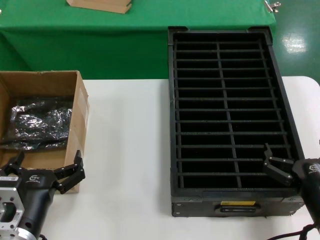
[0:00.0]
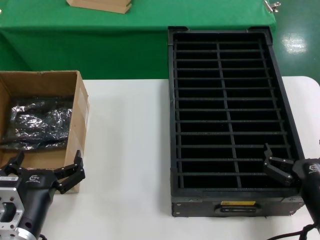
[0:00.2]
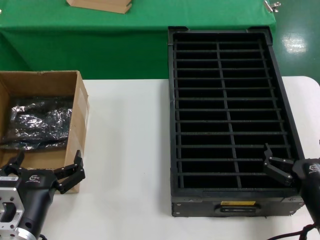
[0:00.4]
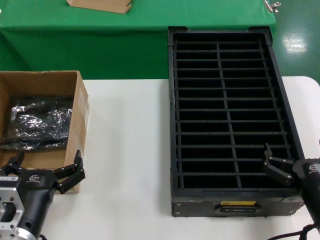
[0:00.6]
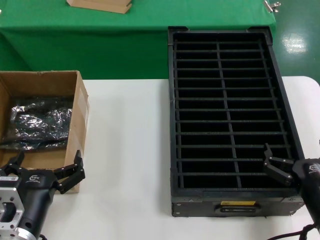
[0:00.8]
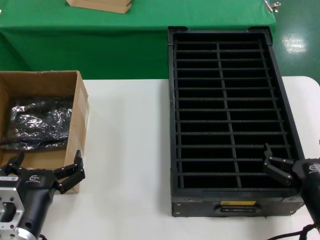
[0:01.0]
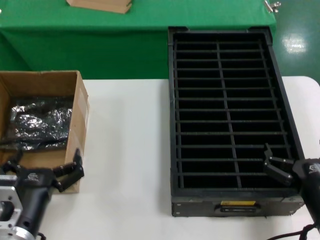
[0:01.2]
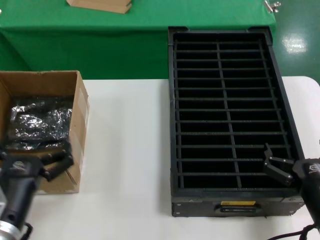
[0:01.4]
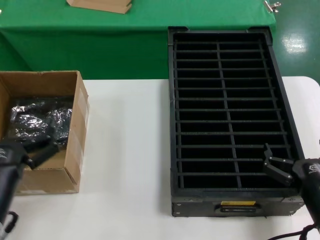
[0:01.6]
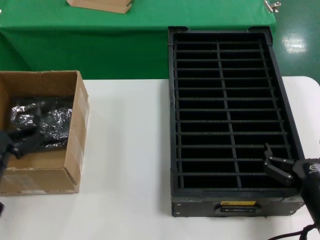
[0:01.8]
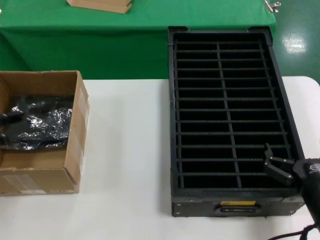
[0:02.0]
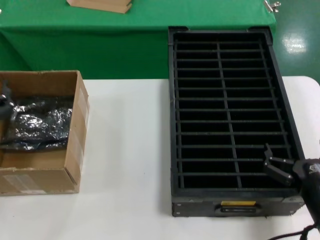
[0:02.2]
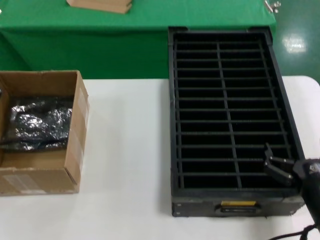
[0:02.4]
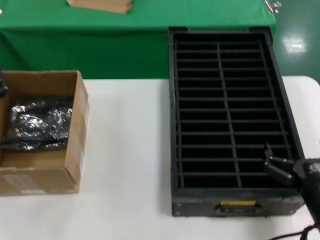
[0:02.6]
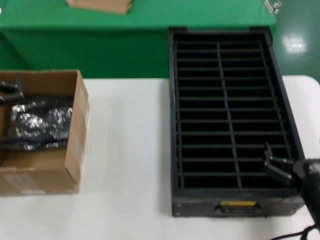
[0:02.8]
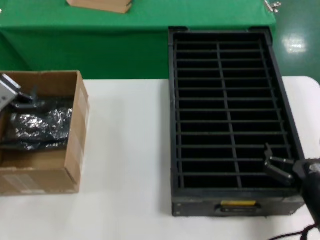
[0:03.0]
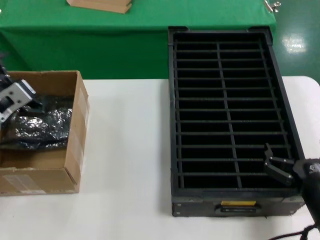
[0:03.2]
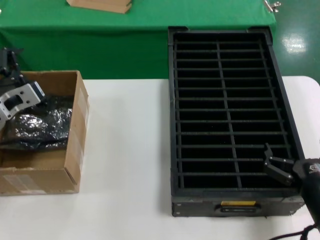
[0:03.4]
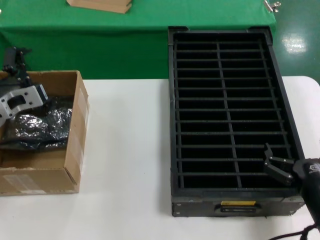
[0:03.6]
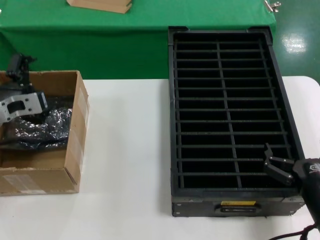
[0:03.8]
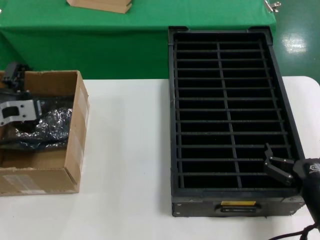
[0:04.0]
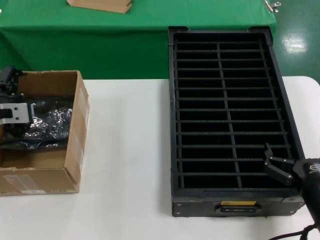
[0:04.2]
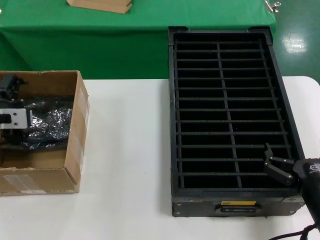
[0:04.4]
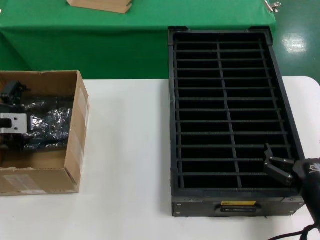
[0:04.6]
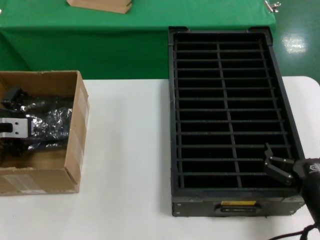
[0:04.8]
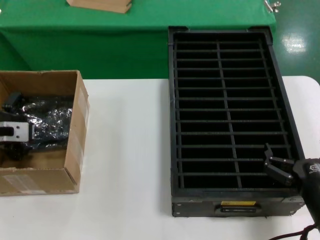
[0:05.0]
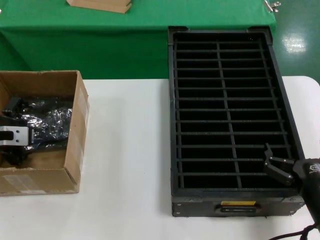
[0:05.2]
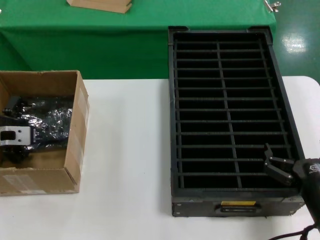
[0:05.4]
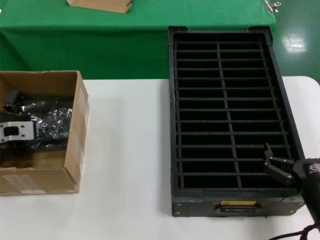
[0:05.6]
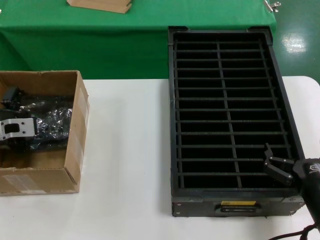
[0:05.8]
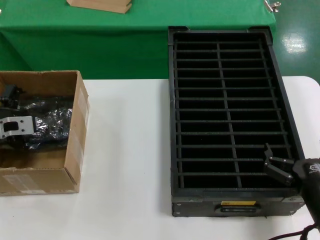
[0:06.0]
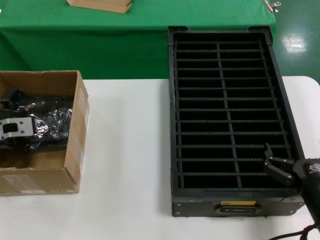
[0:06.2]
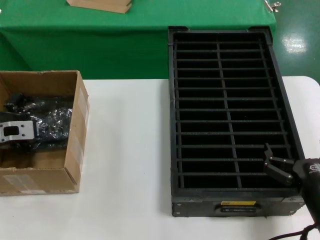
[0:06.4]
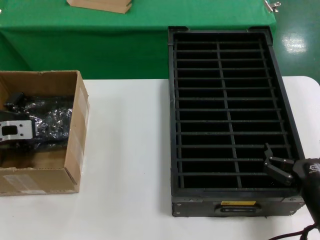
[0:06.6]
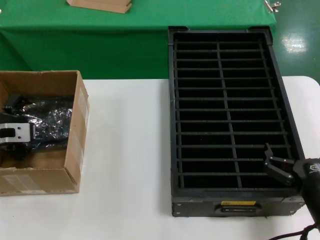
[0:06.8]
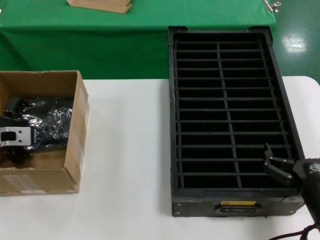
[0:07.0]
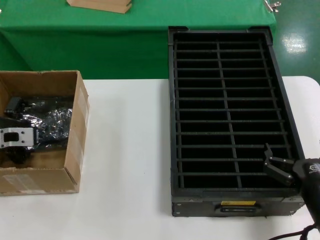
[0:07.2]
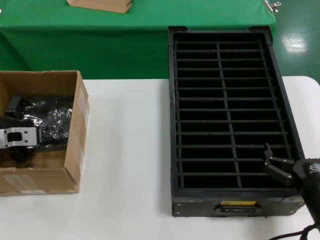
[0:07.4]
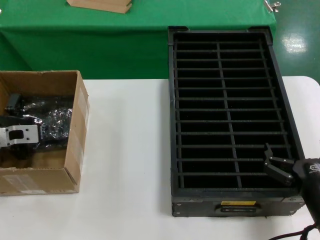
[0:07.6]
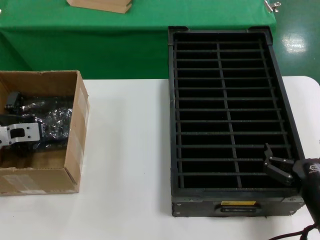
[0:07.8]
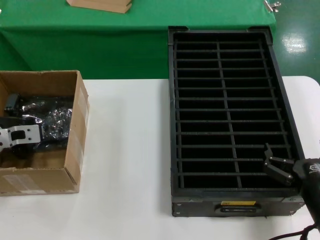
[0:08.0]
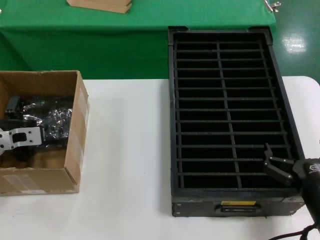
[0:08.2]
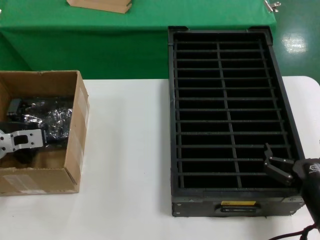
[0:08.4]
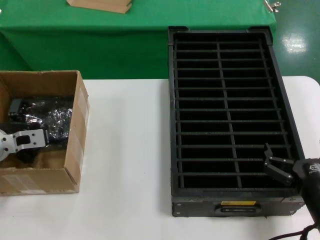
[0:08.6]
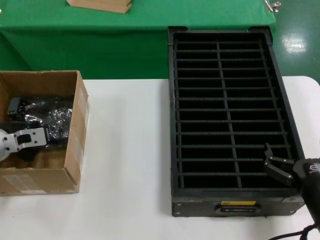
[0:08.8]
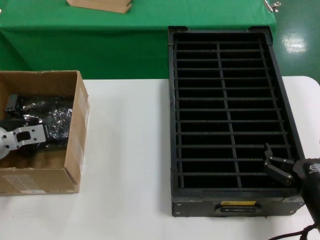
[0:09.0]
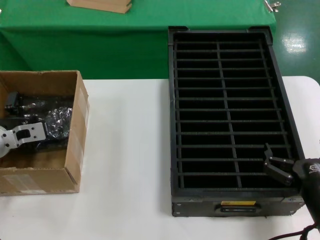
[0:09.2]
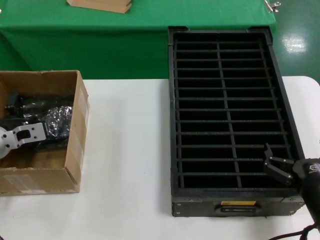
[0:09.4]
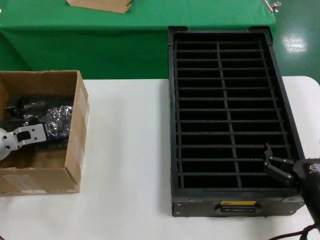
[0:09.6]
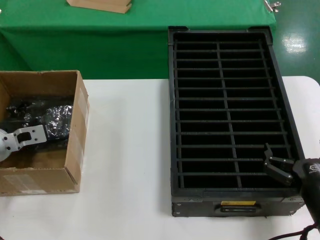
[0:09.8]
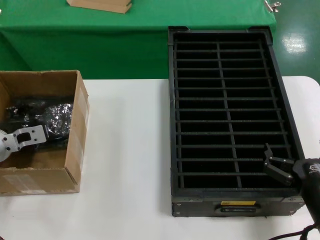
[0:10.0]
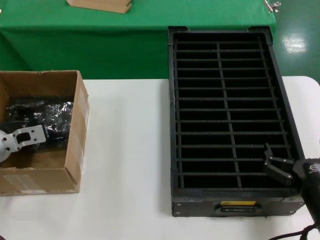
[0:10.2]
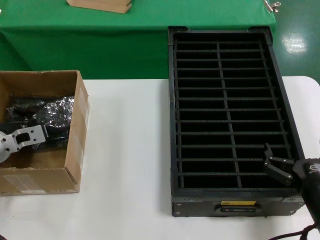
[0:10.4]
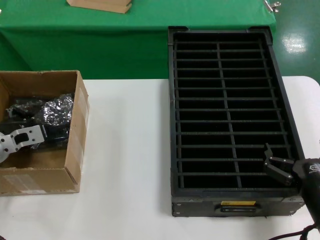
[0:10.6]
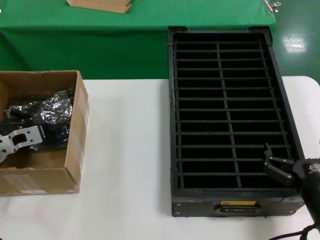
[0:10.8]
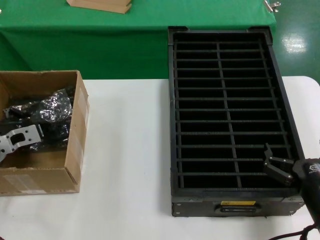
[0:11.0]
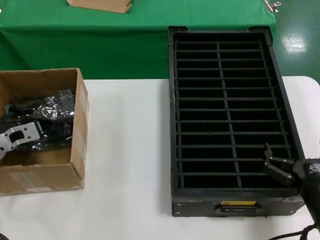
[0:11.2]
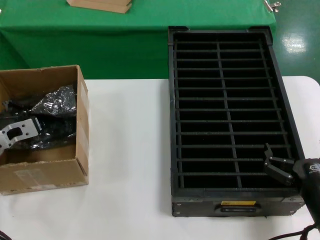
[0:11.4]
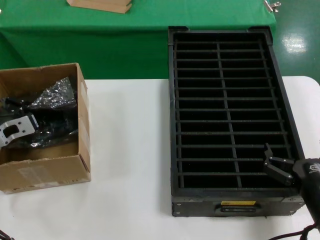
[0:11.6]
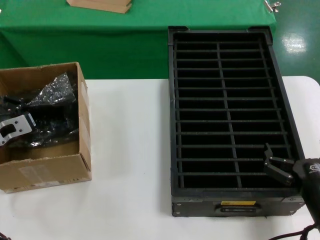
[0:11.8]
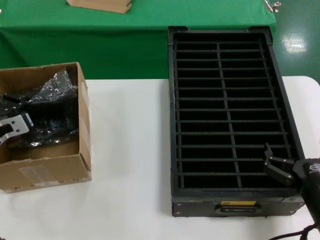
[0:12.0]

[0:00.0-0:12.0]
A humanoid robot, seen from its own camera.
Task of the whole recording: take out graphics card from box remove packaging put into black container.
Step, 0:00.0 to 0:10.8: Grasp the bag.
0:00.0 to 0:01.6: The left hand heads upward, covering roughly 5 cm.
0:01.6 to 0:03.0: The left hand goes roughly 20 cm forward, upward and to the left.
0:03.0 to 0:04.4: The left hand heads forward, covering about 5 cm.
0:04.4 to 0:07.6: The hands stay close to where they were, moving slightly.
0:07.6 to 0:09.0: The hands make only small movements.
0:09.0 to 0:10.4: The two hands keep their place.
0:10.4 to 0:12.0: The hands move only a little.

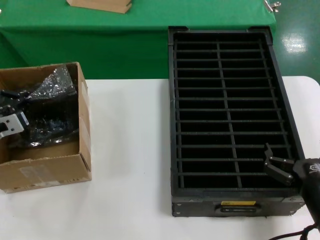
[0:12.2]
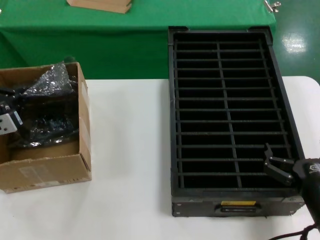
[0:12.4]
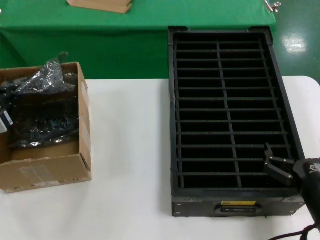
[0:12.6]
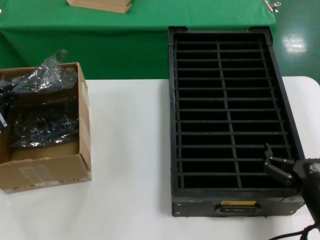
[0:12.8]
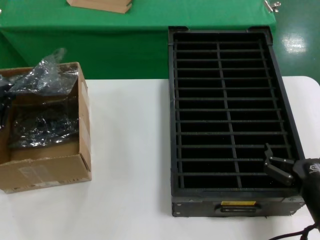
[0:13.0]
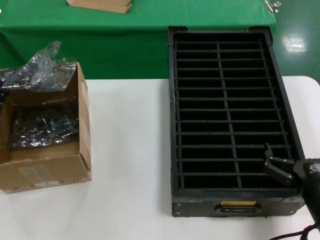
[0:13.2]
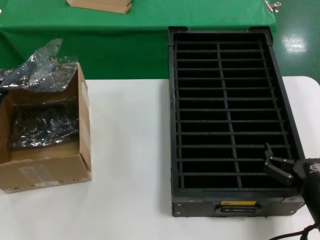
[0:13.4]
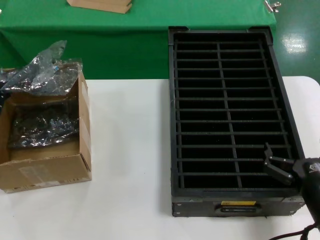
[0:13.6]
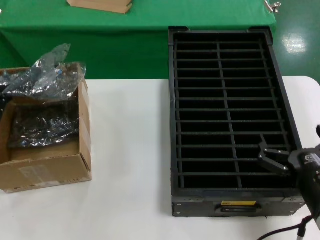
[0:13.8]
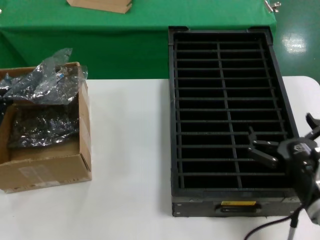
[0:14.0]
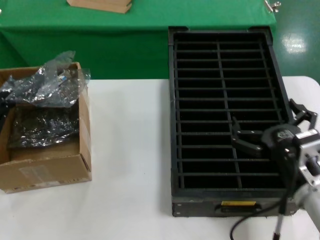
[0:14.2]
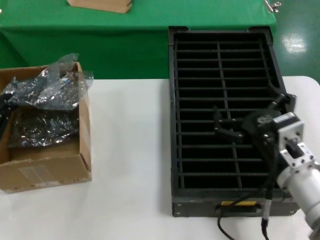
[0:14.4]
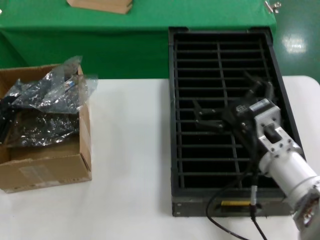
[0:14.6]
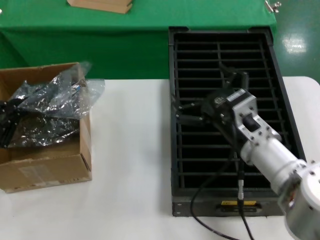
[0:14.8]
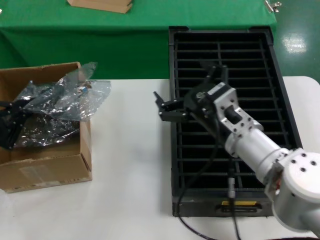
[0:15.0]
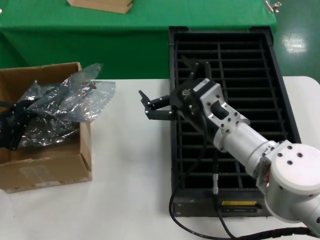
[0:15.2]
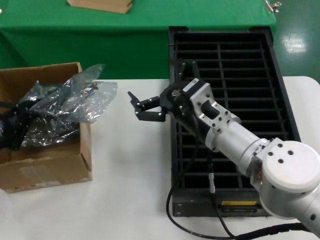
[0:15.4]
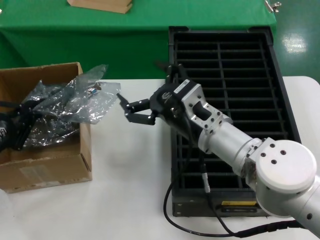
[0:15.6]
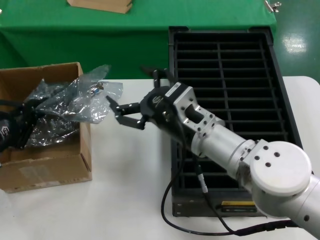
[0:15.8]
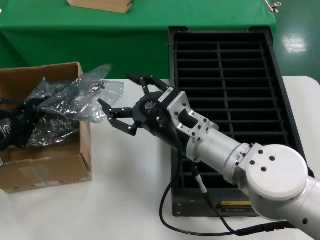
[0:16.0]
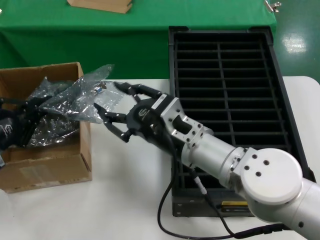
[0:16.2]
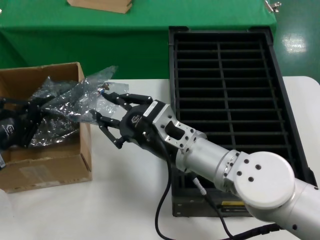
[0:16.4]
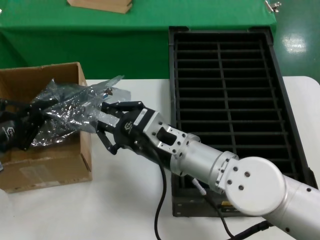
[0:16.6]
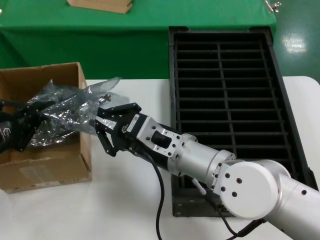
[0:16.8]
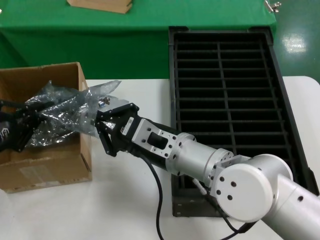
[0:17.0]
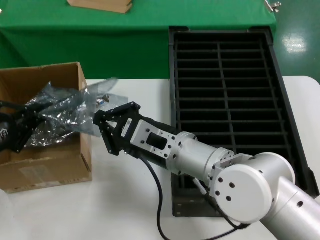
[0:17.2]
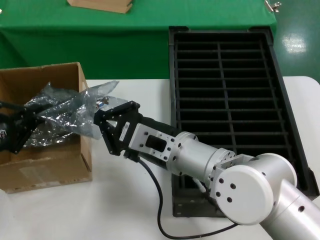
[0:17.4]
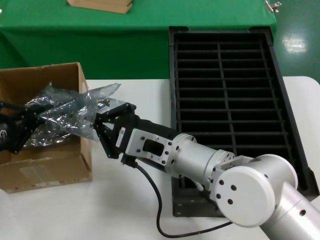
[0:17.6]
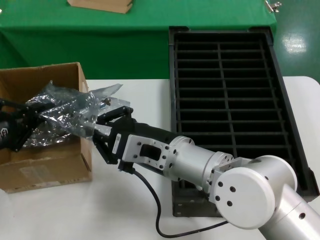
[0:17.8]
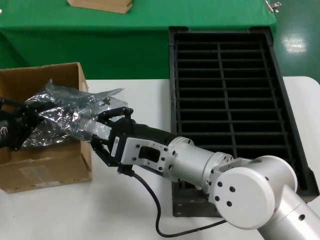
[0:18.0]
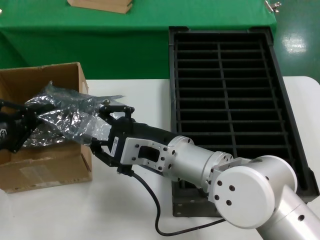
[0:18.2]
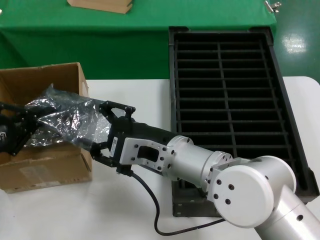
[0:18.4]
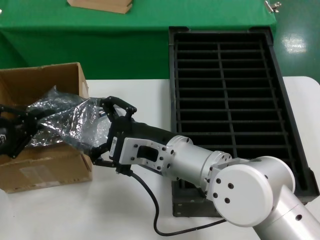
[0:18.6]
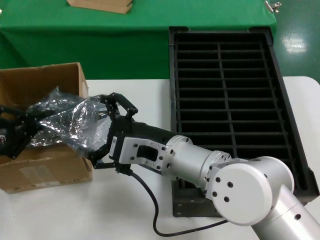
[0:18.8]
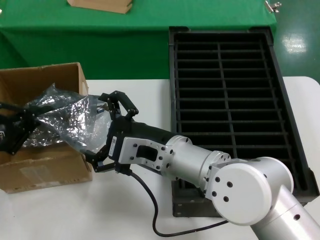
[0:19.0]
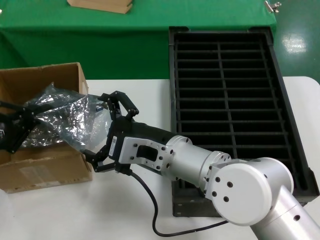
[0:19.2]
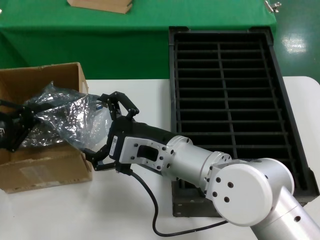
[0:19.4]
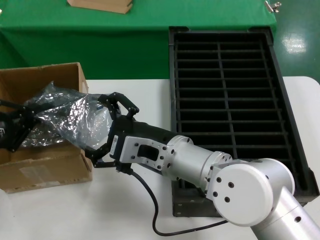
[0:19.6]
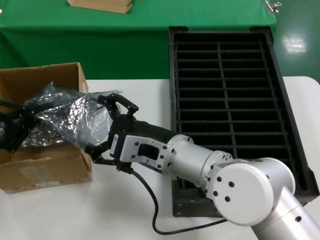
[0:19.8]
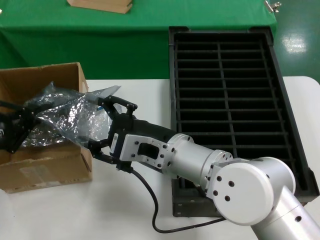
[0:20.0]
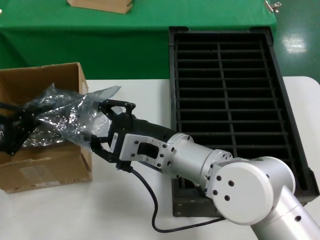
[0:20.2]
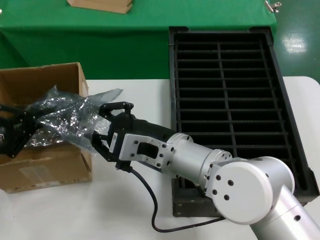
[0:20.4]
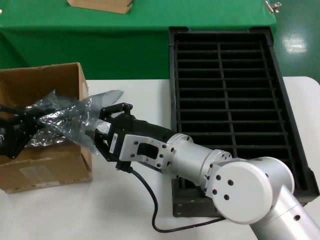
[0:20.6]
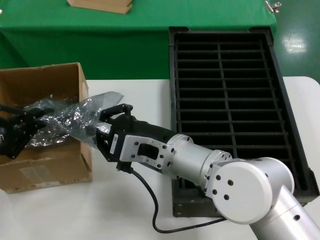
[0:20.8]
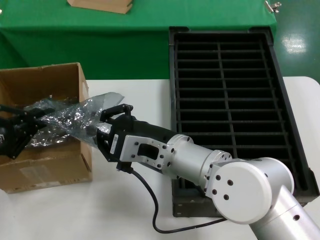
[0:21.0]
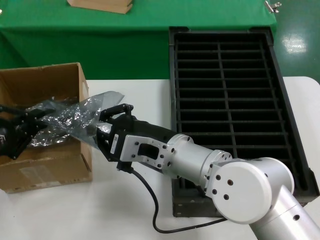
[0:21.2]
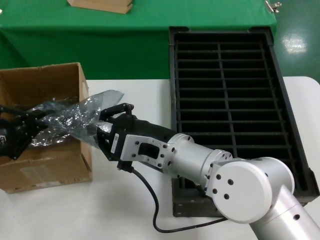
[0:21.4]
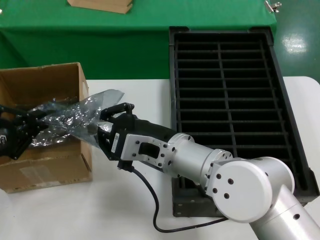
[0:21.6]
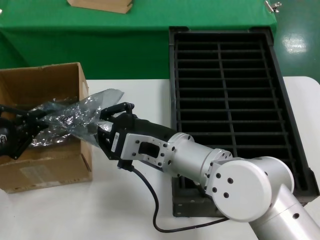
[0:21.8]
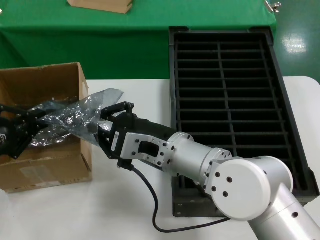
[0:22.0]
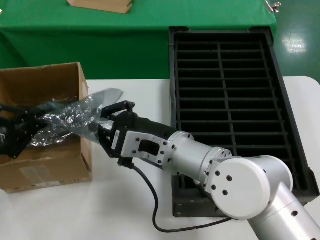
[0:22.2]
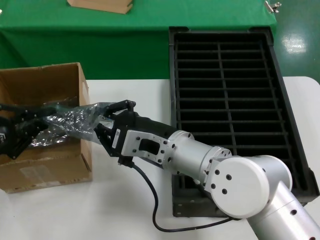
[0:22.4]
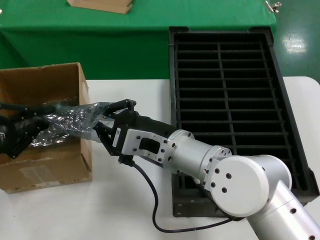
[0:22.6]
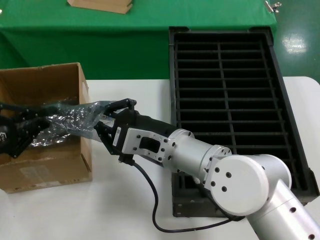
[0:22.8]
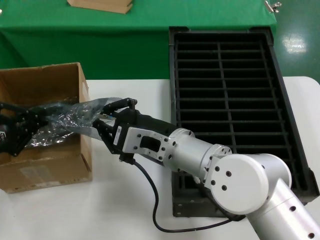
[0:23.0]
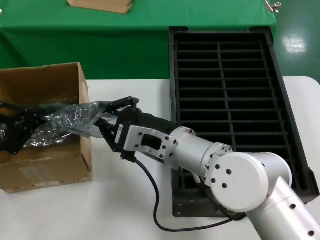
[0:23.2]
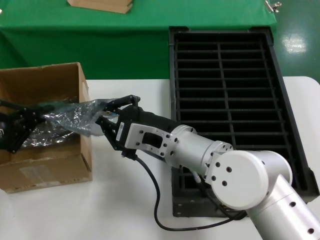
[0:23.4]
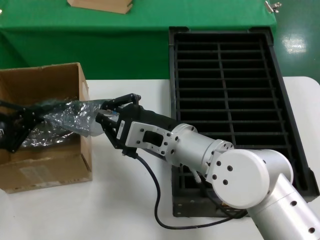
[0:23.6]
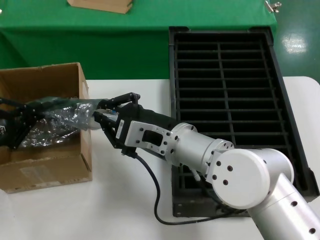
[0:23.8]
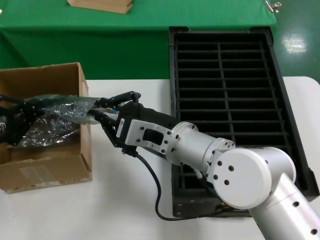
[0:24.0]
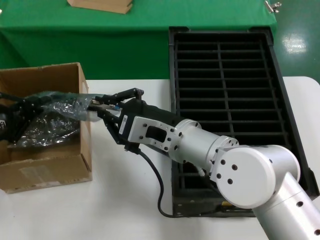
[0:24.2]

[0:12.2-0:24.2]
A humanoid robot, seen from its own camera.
Task of the whole recording: take out graphics card from box remove packaging put into black container.
Step, 0:12.2 to 0:13.4: Lift the bag.
0:12.2 to 0:13.8: The left hand moves backward and upward, approximately 10 cm.
0:13.8 to 0:15.2: The right hand travels to the left, forward and upward by about 20 cm.
0:15.2 to 0:16.6: The right hand is displaced to the left by some 5 cm.
0:18.2 to 0:21.2: The two hands keep their place.
0:21.2 to 0:22.6: Both hands stay put.
